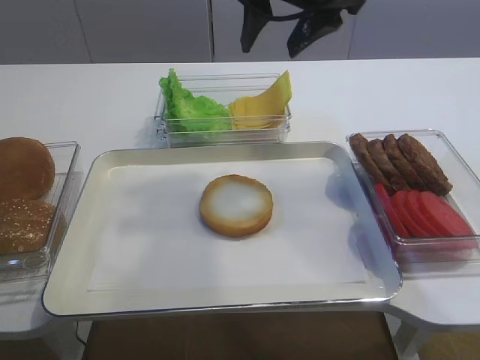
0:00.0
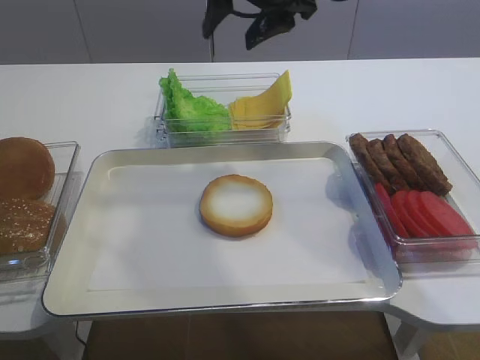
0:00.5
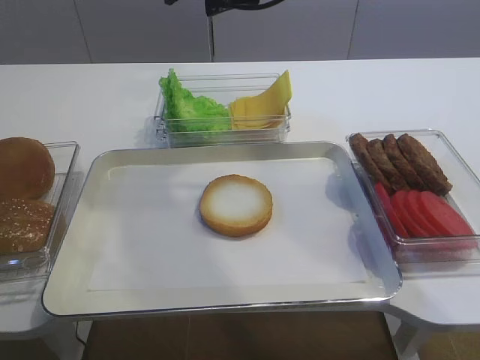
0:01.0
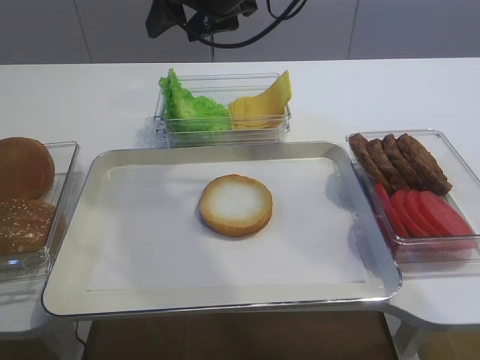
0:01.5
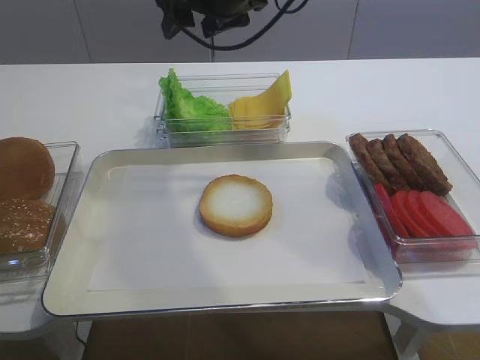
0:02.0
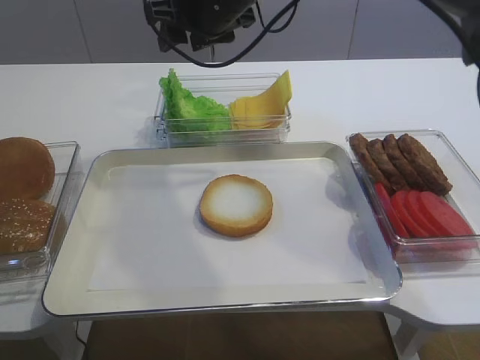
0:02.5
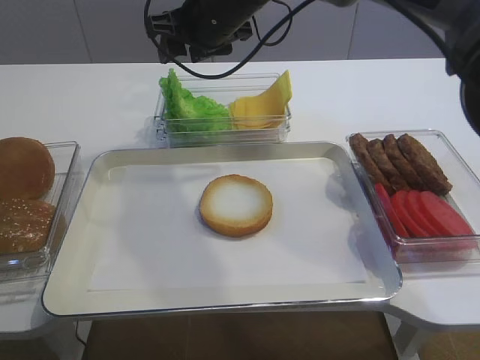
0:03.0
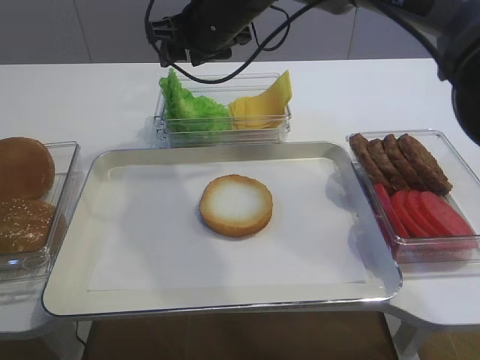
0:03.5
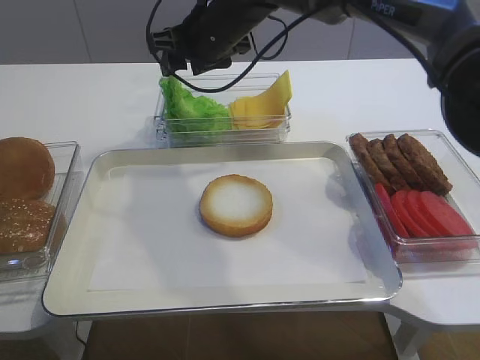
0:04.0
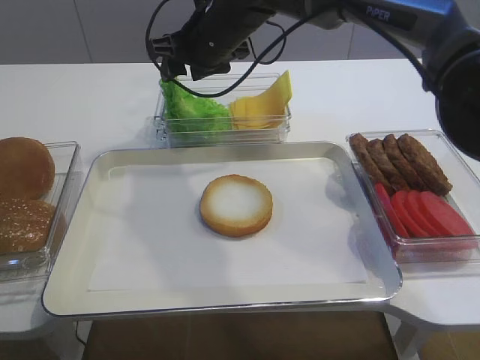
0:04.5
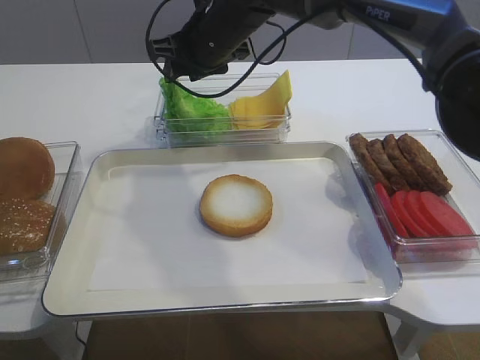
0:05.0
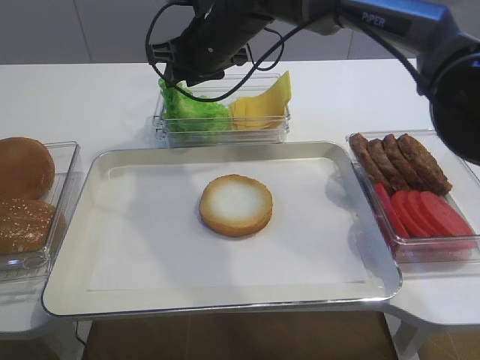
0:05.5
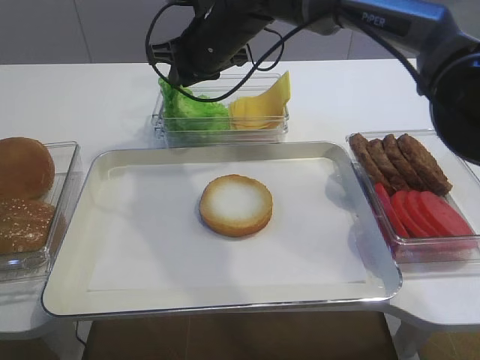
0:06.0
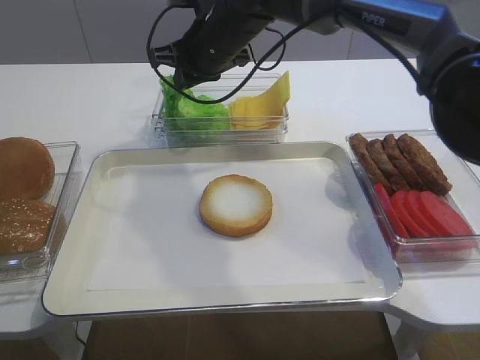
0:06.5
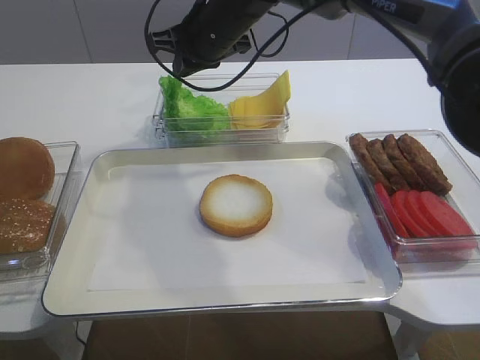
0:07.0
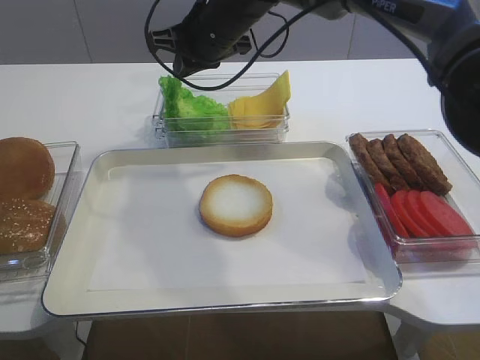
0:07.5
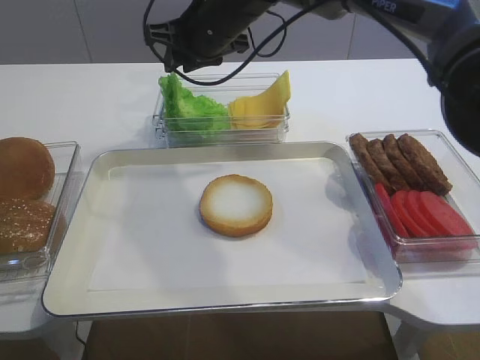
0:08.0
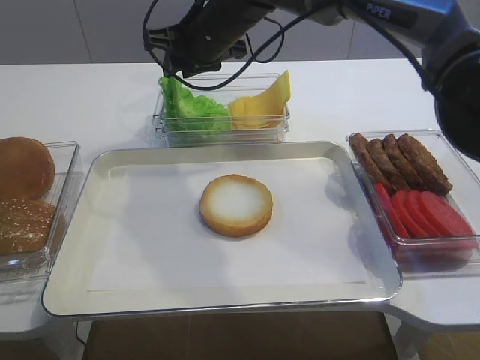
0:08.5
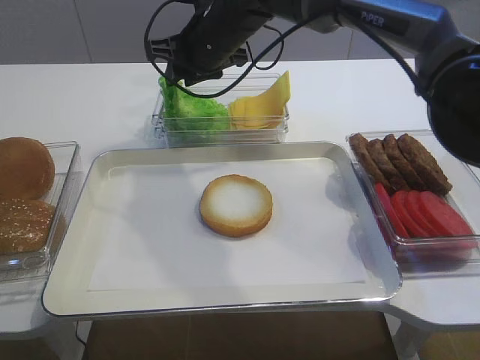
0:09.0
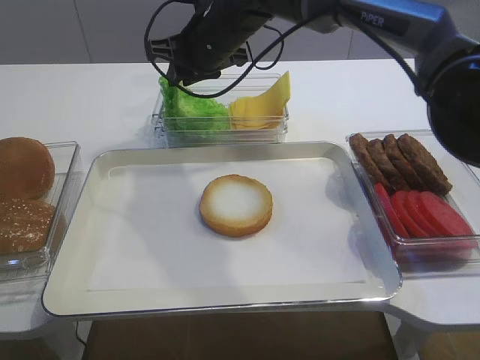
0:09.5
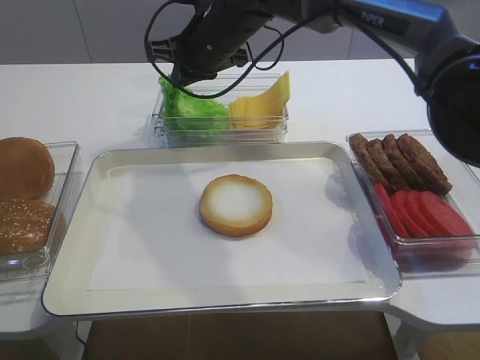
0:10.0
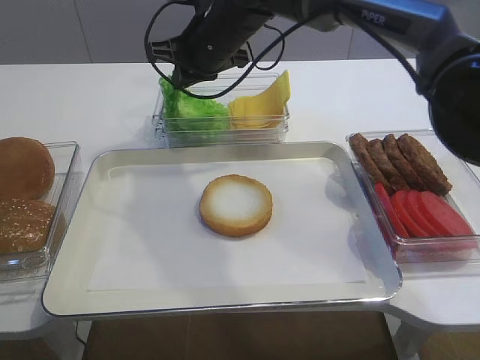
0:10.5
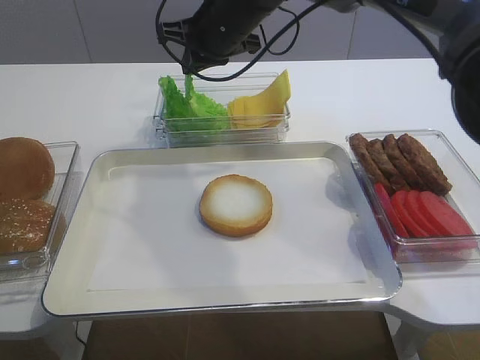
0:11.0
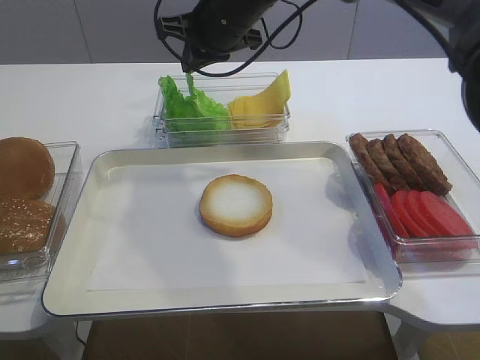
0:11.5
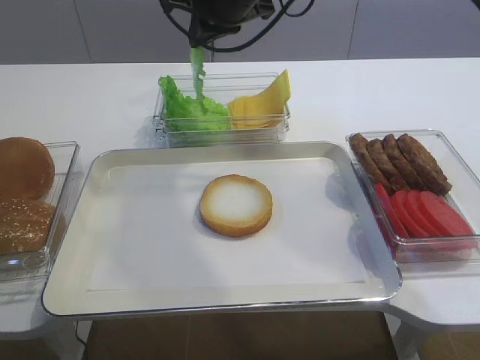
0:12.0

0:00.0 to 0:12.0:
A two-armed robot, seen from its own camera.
0:00.0 to 0:02.0: The right gripper shifts roughly 10 cm to the left and forward.
0:02.0 to 0:04.0: The right gripper shifts about 5 cm downward.
0:04.0 to 0:06.0: The right gripper closes up.
0:06.0 to 0:10.0: The grippers move only a little.
0:10.0 to 0:12.0: The right gripper shifts about 5 cm upward.

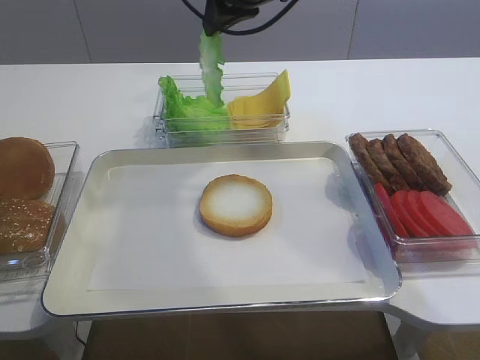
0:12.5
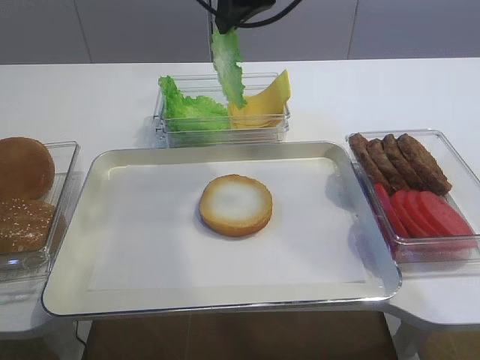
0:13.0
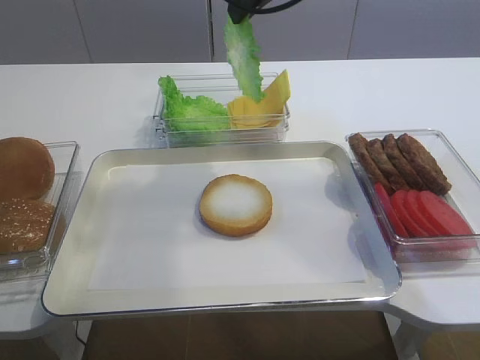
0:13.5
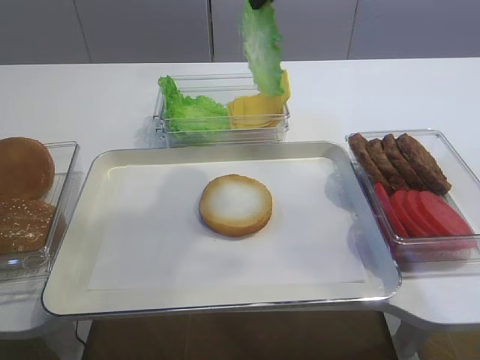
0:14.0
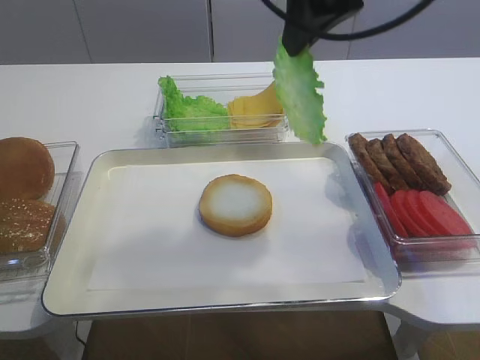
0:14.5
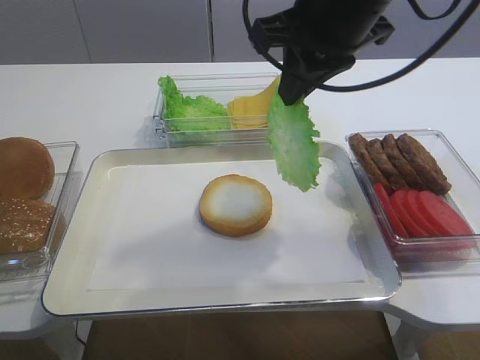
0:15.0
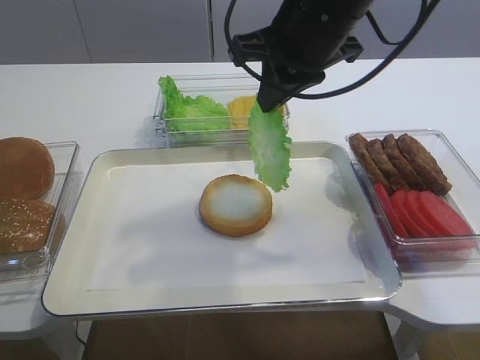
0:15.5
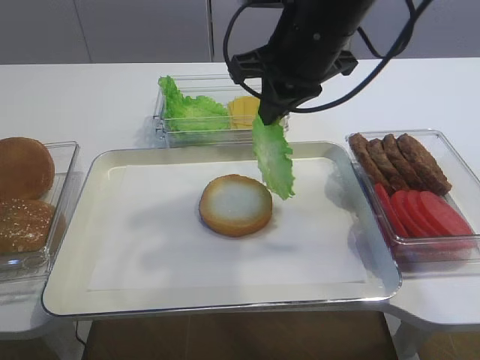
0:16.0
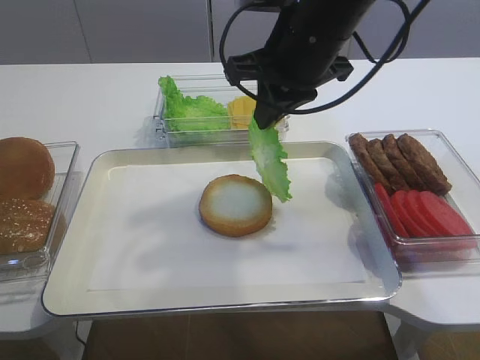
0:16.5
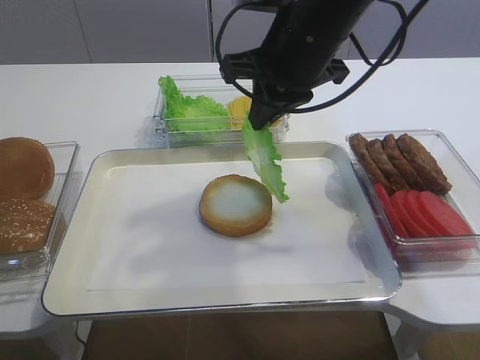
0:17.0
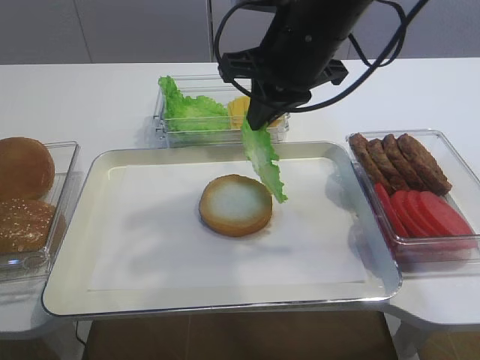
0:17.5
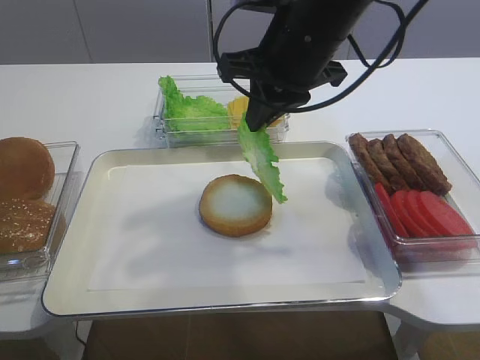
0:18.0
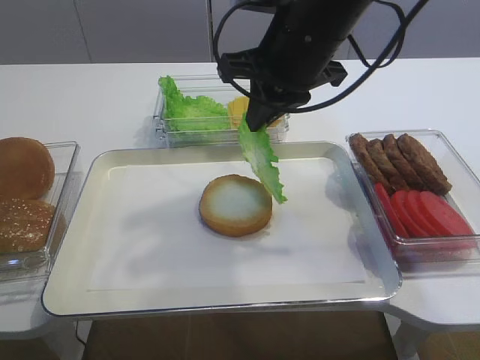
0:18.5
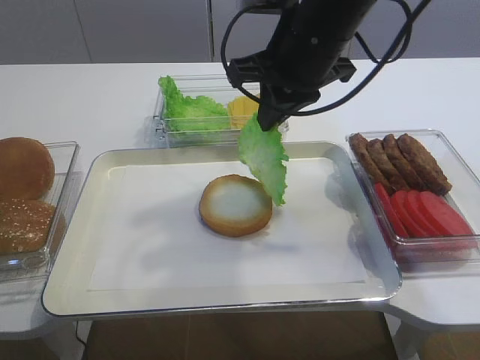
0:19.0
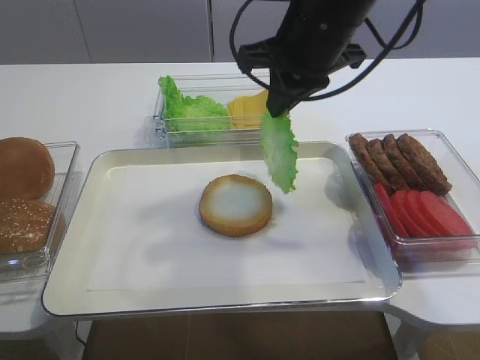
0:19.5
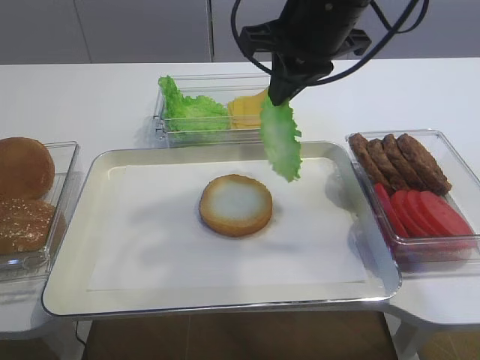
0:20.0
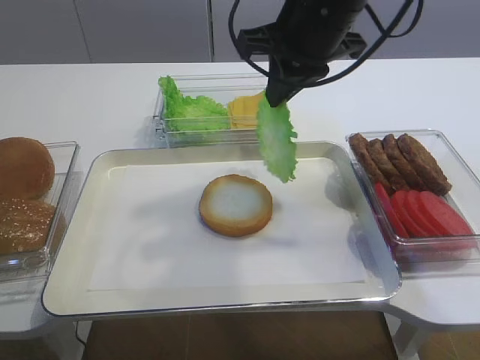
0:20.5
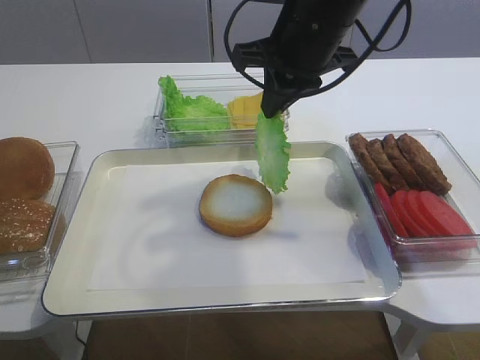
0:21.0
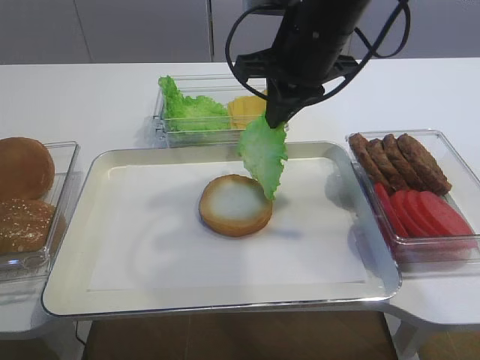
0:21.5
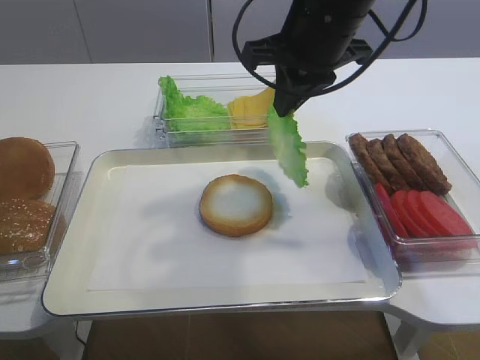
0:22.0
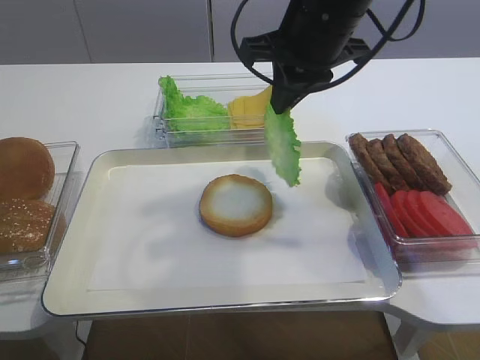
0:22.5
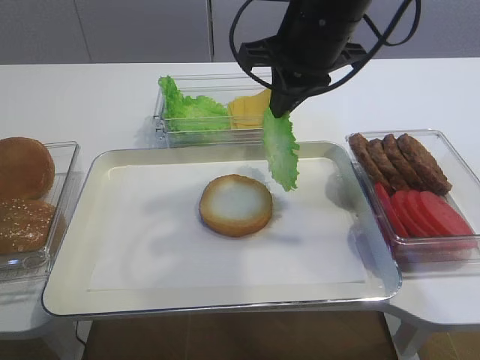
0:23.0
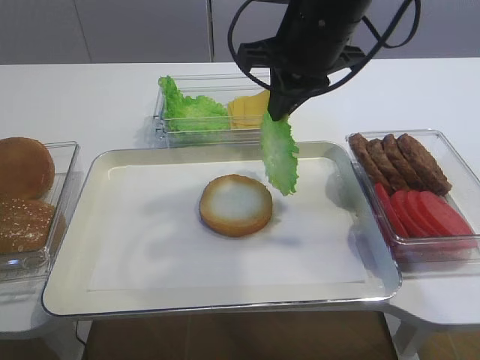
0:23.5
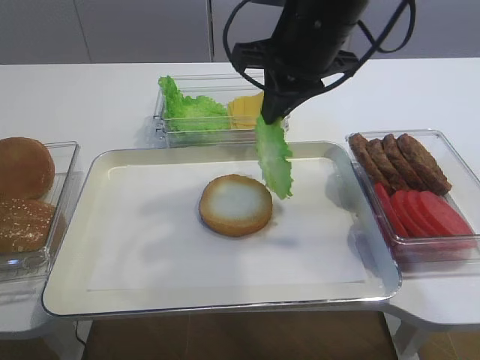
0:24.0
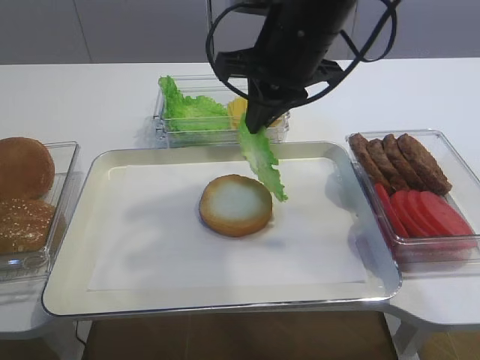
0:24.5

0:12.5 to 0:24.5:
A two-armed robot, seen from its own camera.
0:12.5 to 0:14.5: The right gripper travels backward and to the right by approximately 10 cm.
0:14.5 to 0:16.5: The right gripper heads downward, covering approximately 10 cm.
0:16.5 to 0:18.5: Neither gripper changes place.
0:18.5 to 0:24.5: There are only small adjustments of the grippers.

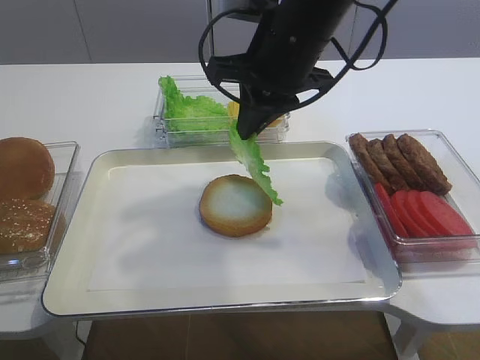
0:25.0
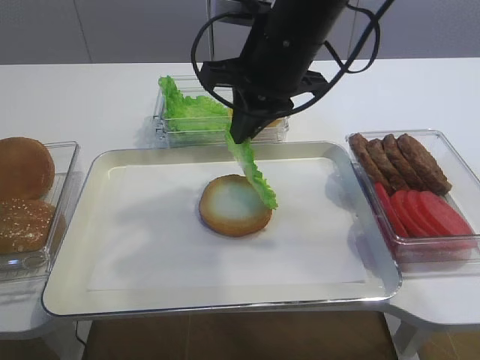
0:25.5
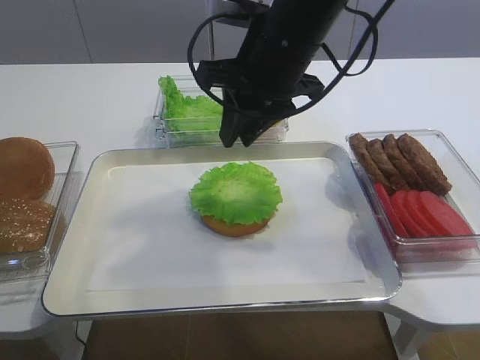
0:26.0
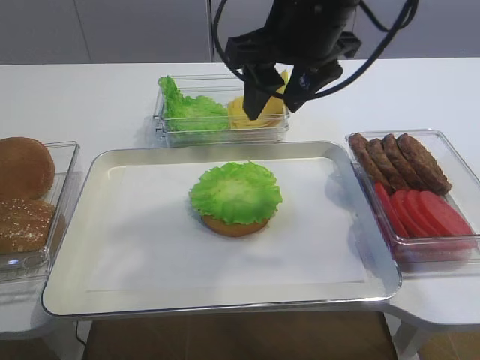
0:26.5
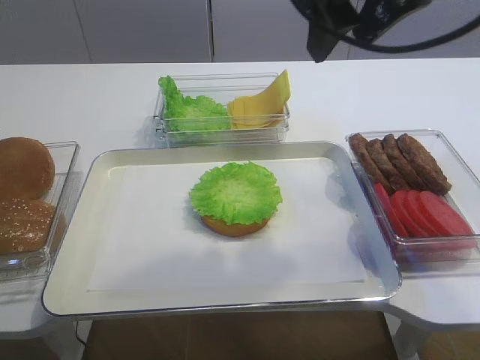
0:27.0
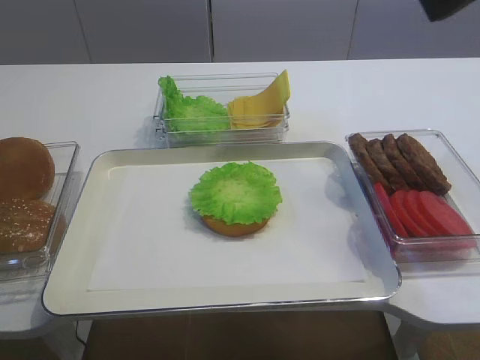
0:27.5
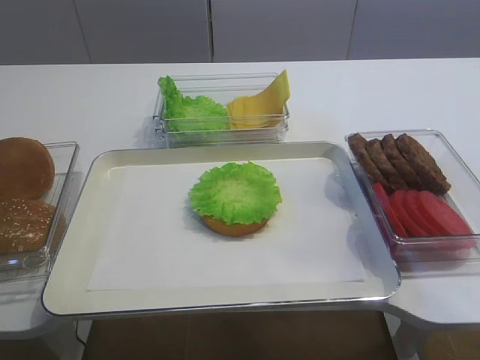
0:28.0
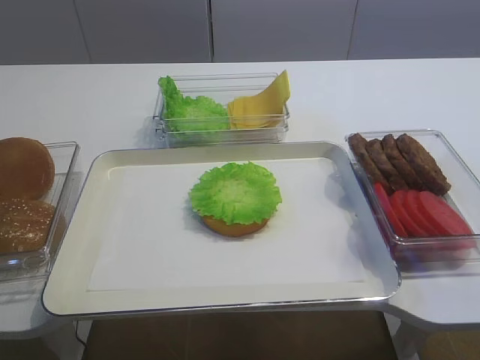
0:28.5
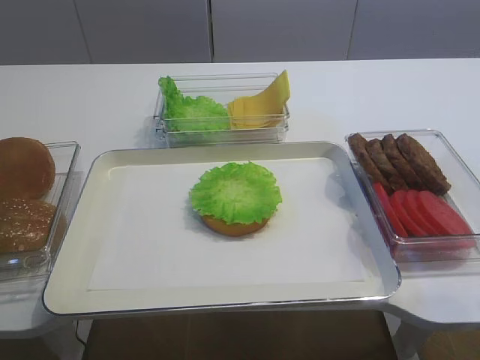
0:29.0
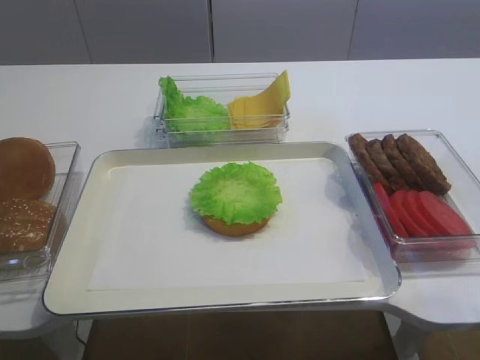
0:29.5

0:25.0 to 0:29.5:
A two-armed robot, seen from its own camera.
0:25.0 to 0:27.0: The right gripper heads upward, to the right and backward, covering about 10 cm, and opens up.
0:27.0 to 0:29.5: The right gripper shifts roughly 35 cm backward, to the right and downward.
